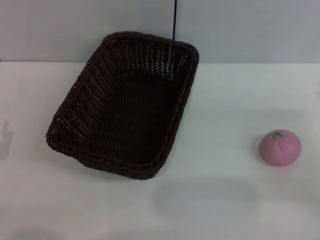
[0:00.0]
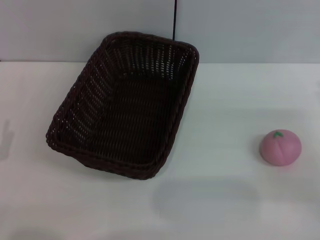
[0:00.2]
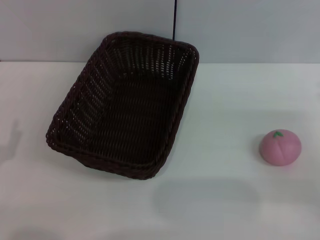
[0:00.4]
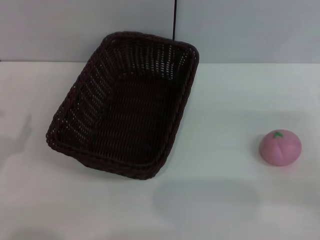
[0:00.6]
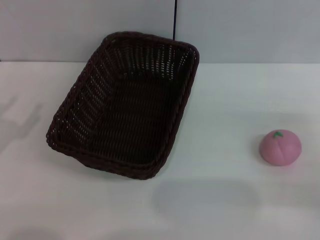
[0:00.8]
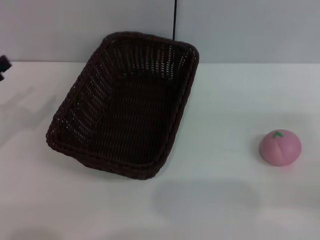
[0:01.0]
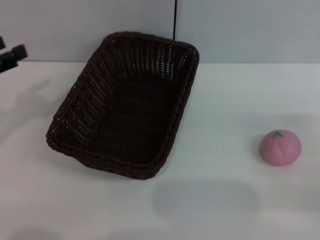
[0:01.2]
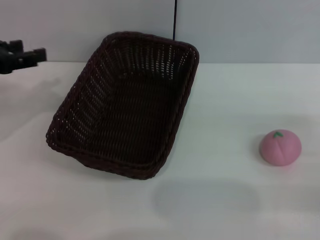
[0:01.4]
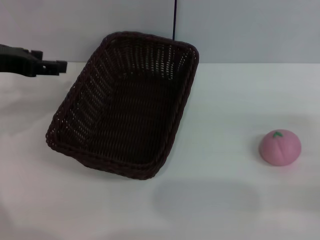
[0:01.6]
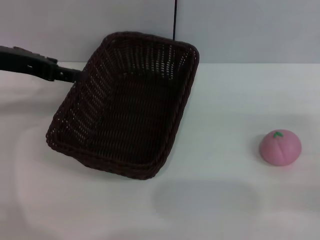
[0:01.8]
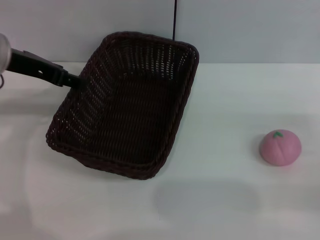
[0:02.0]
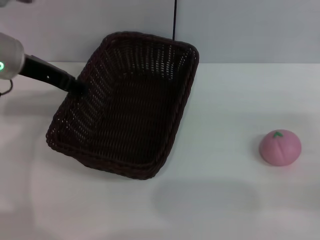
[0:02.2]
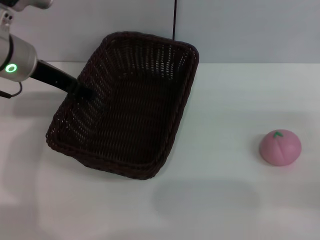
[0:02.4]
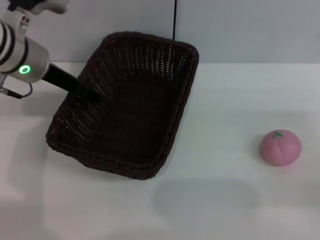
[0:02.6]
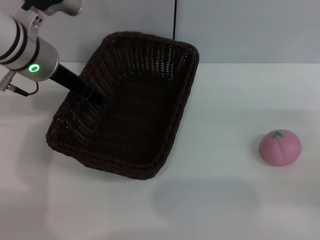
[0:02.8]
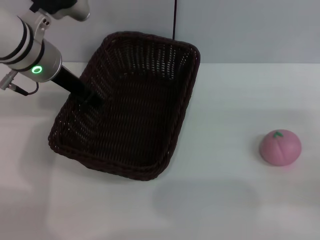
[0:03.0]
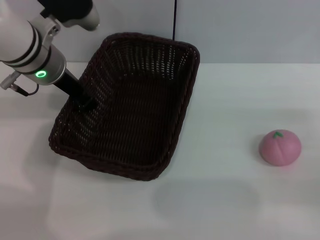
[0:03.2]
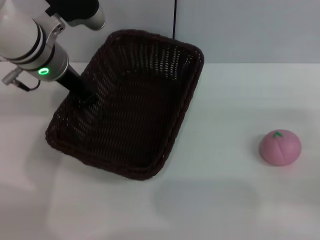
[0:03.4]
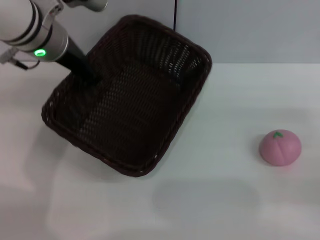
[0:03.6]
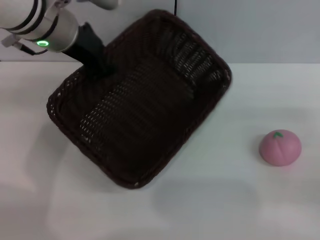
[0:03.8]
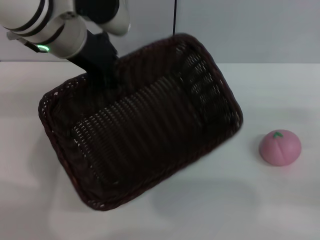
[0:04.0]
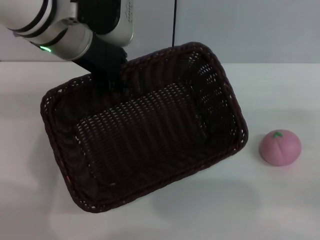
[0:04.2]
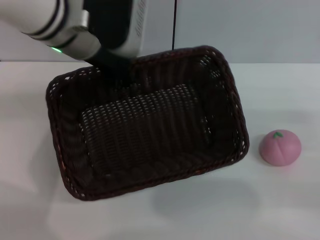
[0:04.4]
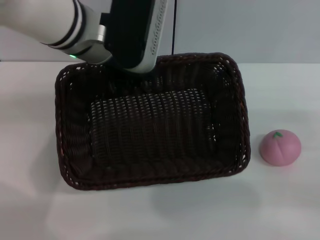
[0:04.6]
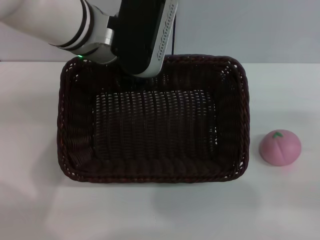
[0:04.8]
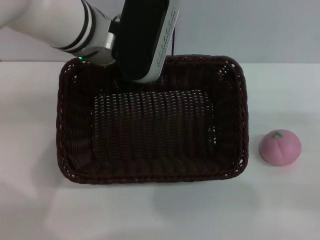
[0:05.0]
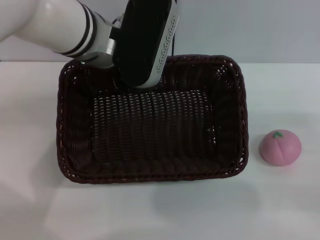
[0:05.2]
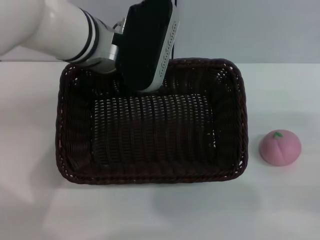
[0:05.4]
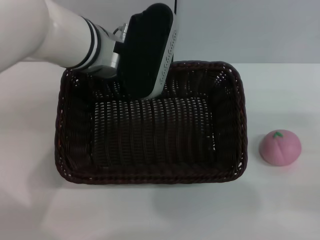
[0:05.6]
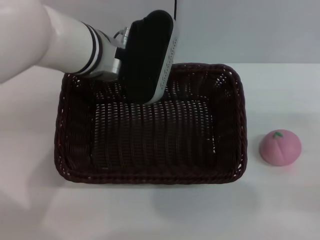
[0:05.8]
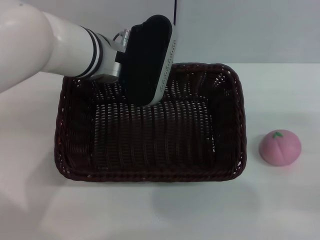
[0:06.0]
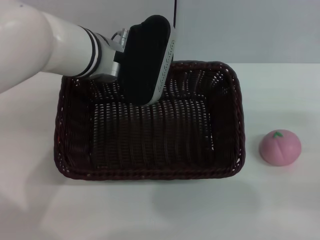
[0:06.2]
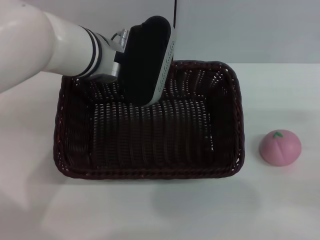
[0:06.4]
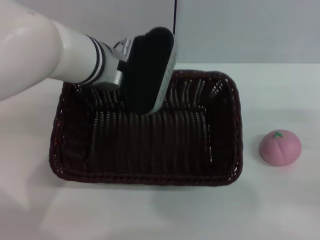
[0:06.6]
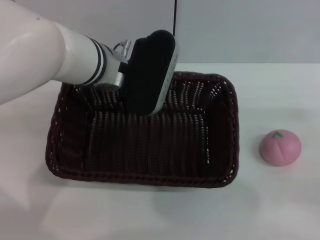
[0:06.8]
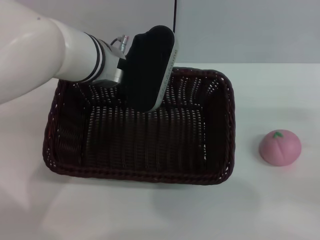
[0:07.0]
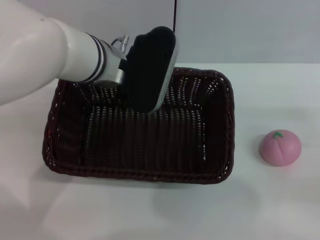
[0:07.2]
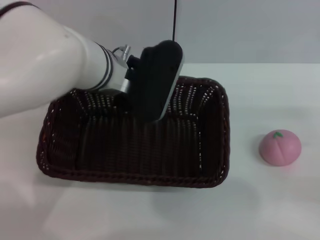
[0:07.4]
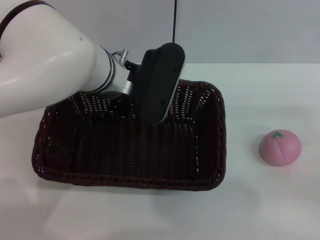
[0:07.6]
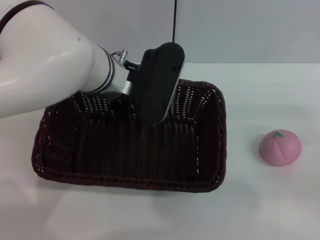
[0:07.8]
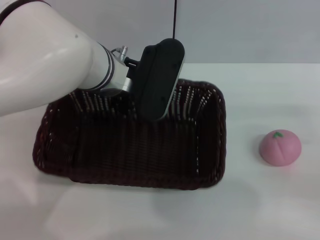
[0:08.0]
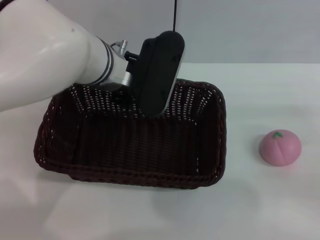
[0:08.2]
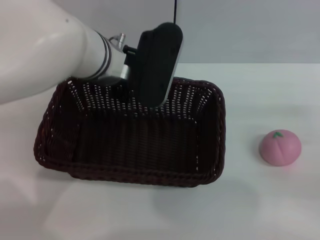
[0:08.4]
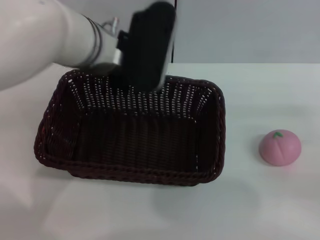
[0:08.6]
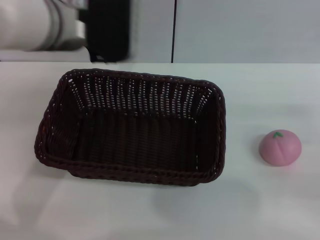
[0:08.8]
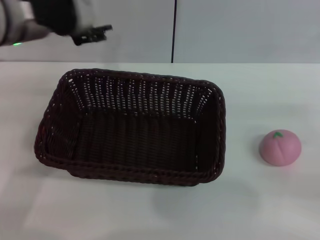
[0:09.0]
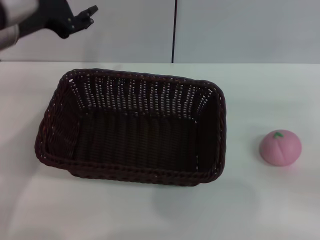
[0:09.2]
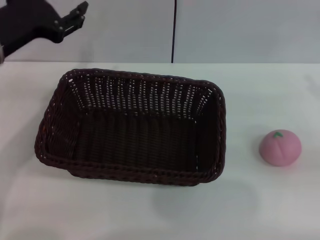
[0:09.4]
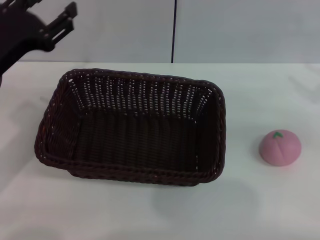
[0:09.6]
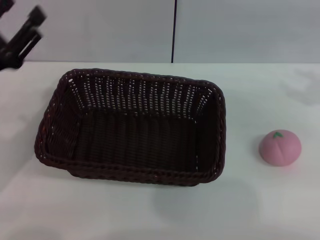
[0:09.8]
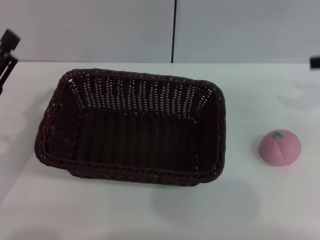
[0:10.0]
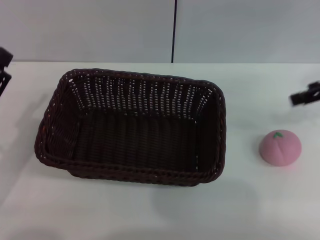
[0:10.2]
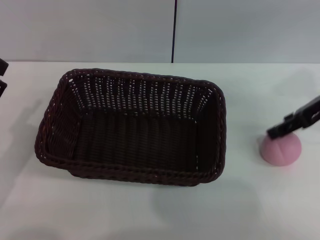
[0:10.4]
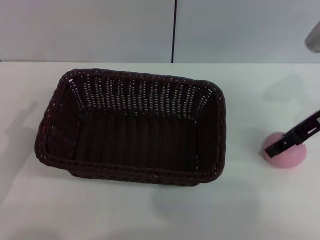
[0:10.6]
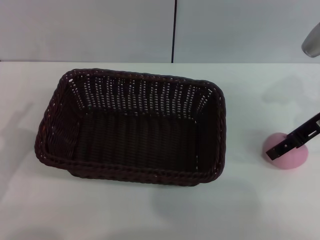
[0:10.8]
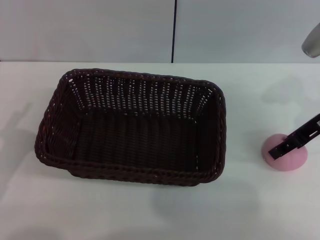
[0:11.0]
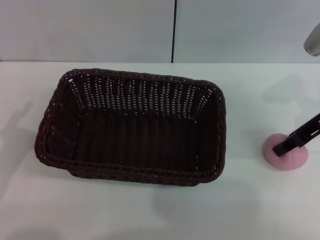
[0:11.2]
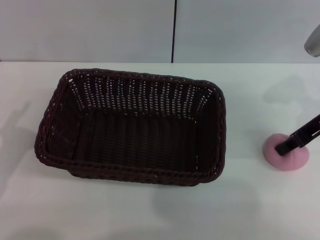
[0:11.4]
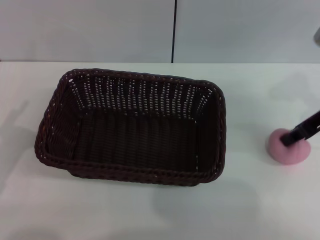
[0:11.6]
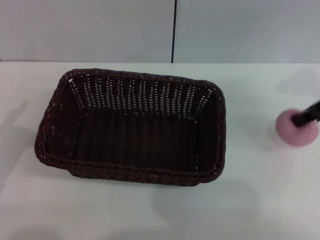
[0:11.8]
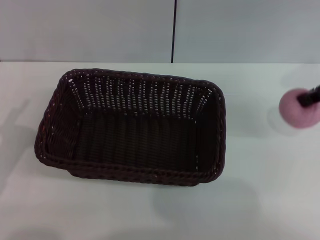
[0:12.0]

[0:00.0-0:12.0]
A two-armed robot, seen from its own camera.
Step, 0:00.0 to 0:03.6: Pick up the dark basket with the left gripper.
Step, 0:04.0 to 0:08.6: Place the dark basket in the center of view with the right gripper.
0:00.0 to 0:01.6: The left gripper heads upward and forward, covering some 25 cm.
0:01.6 to 0:03.0: The left gripper moves to the right and forward, some 10 cm.
0:03.0 to 0:04.4: The left gripper travels to the right by approximately 5 cm, and closes up.
0:04.4 to 0:06.0: The left gripper ends up approximately 5 cm from where it was.
0:06.0 to 0:07.6: The left gripper opens up.
0:07.6 to 0:09.0: The left gripper goes approximately 10 cm to the left and upward.
0:09.0 to 0:10.4: The right gripper is displaced forward, to the left and upward by about 15 cm, while the left gripper heads downward, backward and to the left, covering roughly 25 cm.
0:10.4 to 0:12.0: The right gripper shifts some 5 cm upward, and closes.

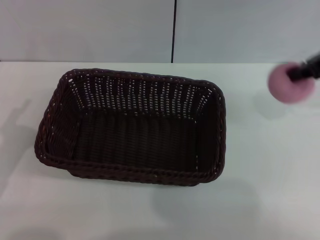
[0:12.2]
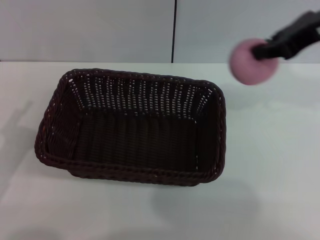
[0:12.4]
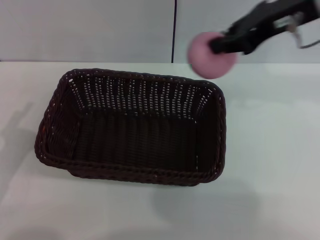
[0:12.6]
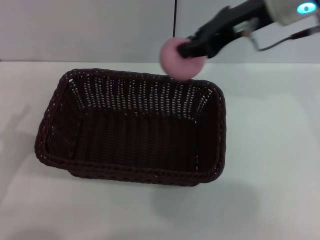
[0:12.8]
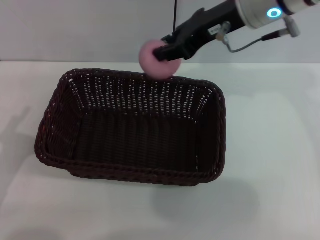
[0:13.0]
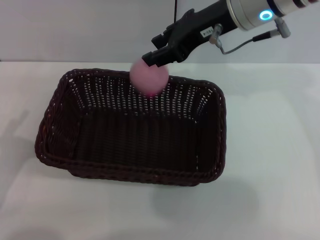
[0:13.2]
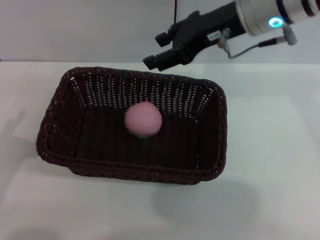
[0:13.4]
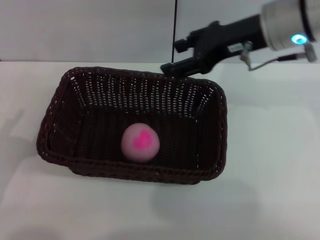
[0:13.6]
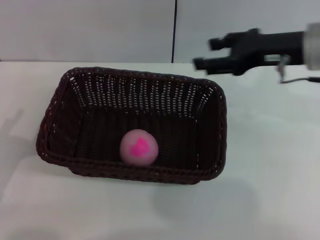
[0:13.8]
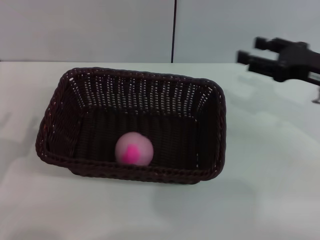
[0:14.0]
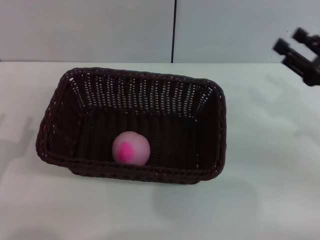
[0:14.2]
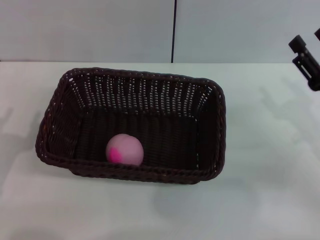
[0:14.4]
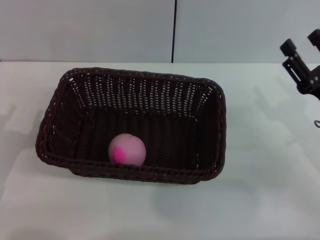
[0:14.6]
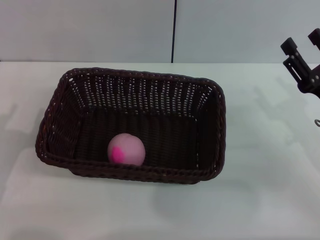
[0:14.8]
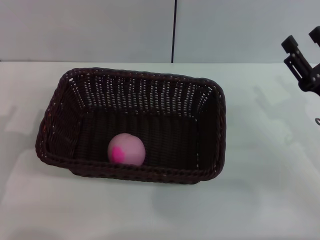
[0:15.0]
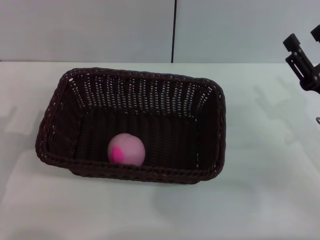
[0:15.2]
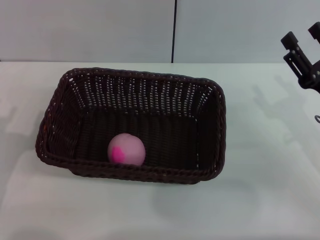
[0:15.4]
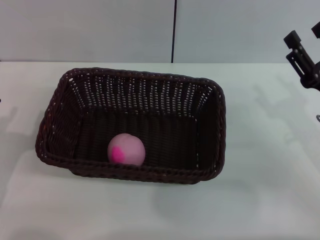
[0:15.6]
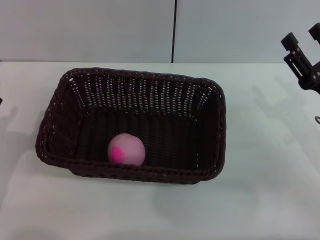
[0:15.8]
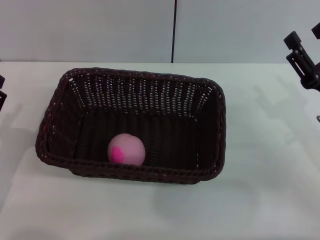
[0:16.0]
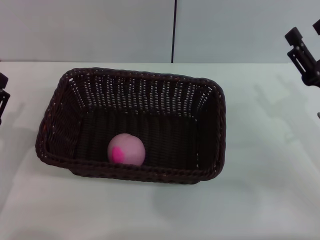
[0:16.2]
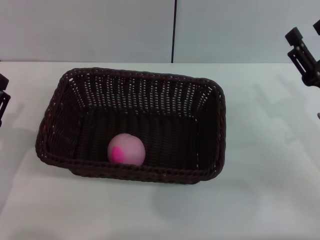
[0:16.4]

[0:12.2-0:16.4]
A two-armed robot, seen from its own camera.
0:12.2 to 0:13.6: The right gripper travels to the left by some 10 cm, and opens up.
0:13.6 to 0:15.0: The right gripper moves downward, backward and to the right, roughly 25 cm.
0:15.0 to 0:16.4: The two grippers keep their place.

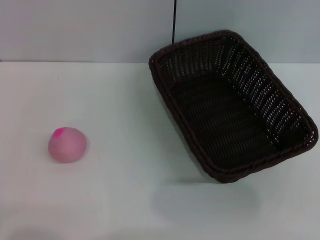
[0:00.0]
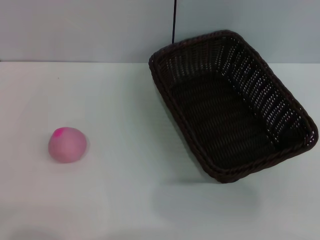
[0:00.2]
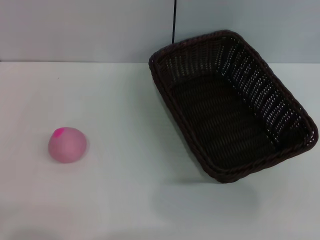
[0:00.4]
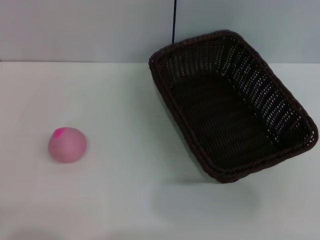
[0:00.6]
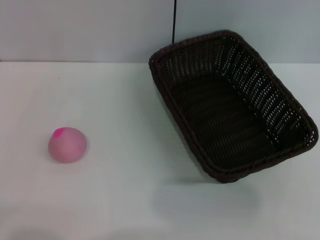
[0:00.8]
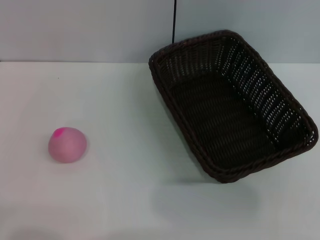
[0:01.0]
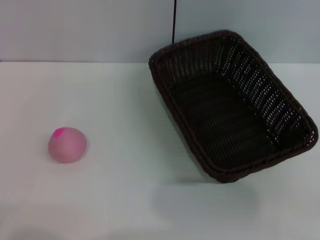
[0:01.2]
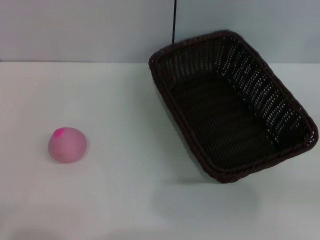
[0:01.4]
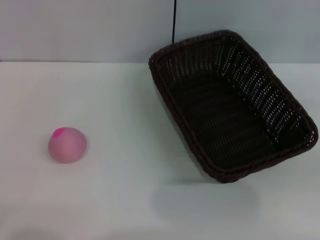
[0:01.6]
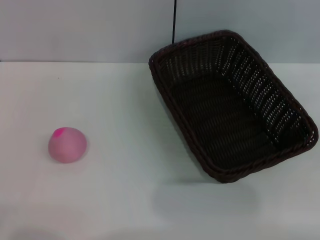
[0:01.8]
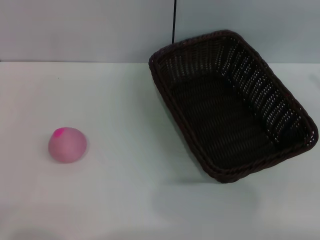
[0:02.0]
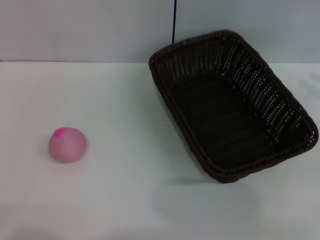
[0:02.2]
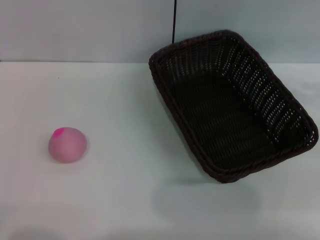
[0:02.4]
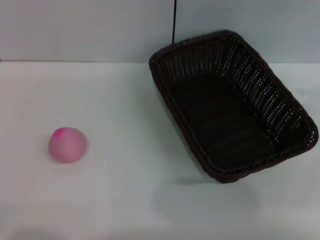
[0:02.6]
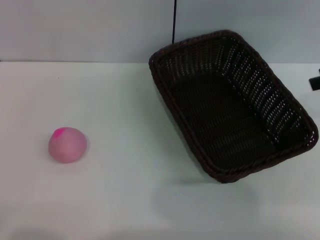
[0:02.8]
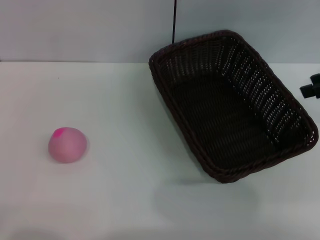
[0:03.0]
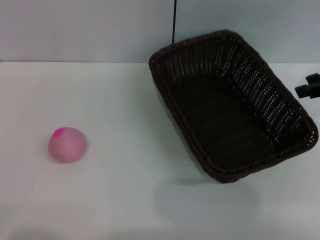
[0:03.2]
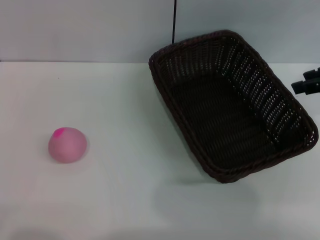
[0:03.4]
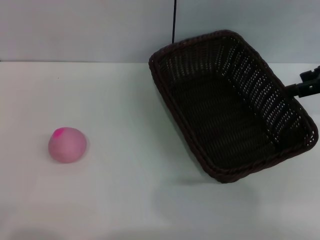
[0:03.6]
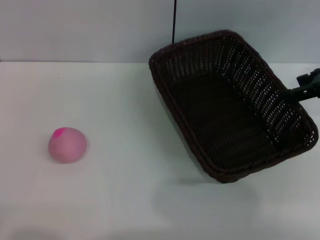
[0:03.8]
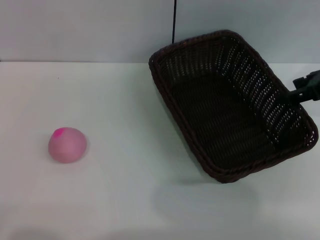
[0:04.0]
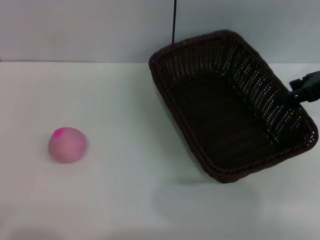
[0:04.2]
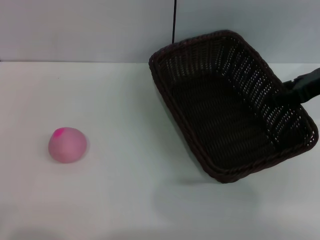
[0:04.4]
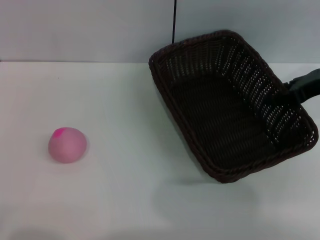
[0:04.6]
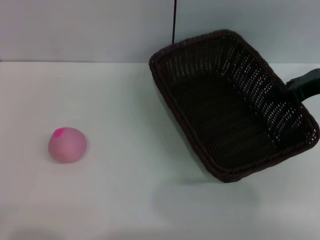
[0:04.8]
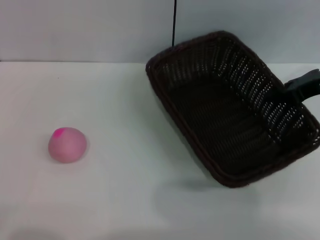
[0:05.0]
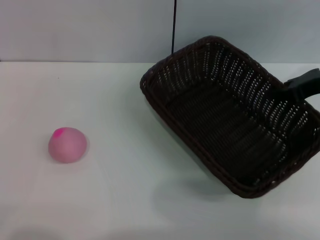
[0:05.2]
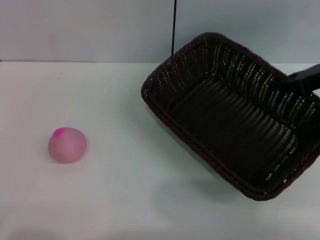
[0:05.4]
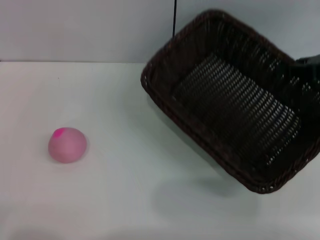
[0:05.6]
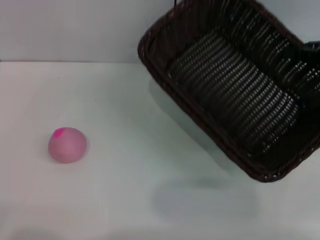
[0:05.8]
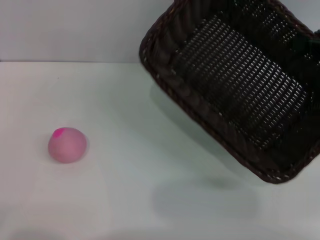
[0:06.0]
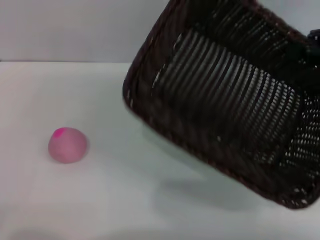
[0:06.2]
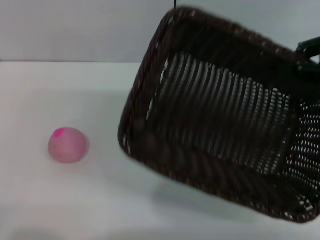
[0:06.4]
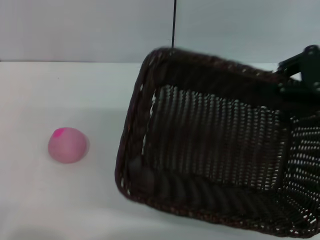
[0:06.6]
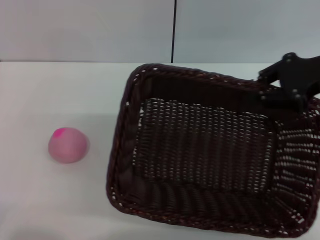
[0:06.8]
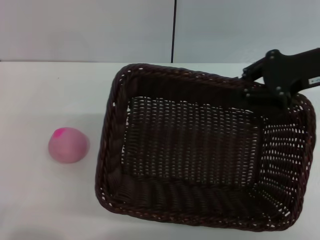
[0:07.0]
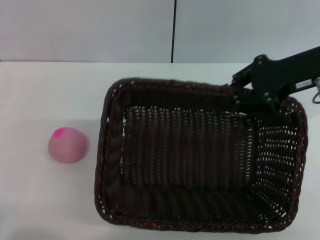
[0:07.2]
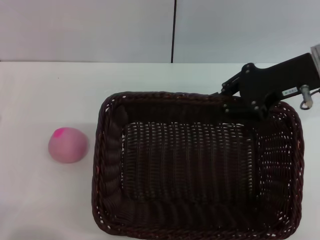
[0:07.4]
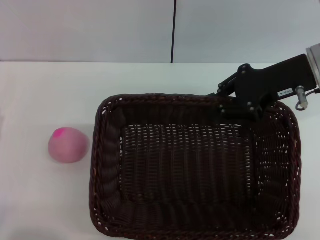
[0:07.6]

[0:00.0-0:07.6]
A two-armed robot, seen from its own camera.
Step, 0:00.0 to 0:05.8: Pick up the dark basket with the right gripper.
0:01.6 to 0:03.0: The right gripper shifts about 15 cm to the left, forward and upward.
0:03.0 to 0:04.6: The right gripper heads downward, covering some 5 cm.
0:04.6 to 0:06.0: The right gripper travels to the right by about 5 cm, and closes its fingers.
0:06.0 to 0:07.6: The right gripper heads to the left, covering some 10 cm.
